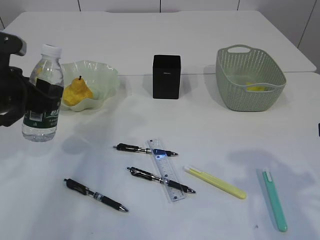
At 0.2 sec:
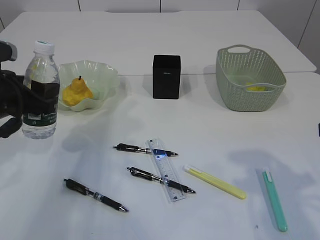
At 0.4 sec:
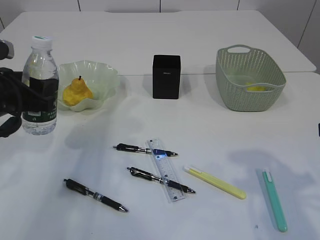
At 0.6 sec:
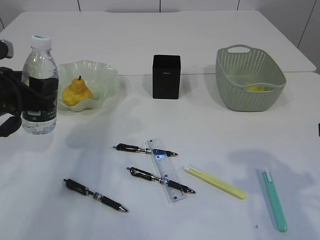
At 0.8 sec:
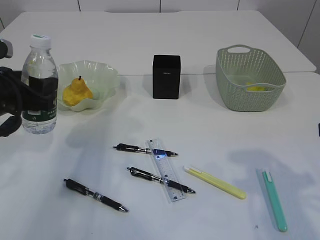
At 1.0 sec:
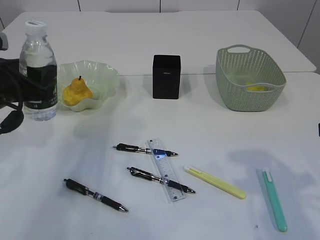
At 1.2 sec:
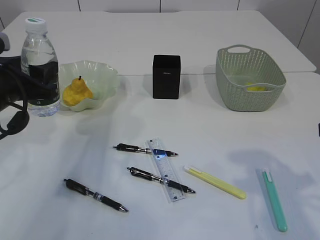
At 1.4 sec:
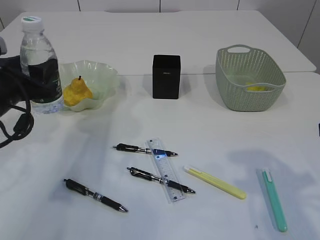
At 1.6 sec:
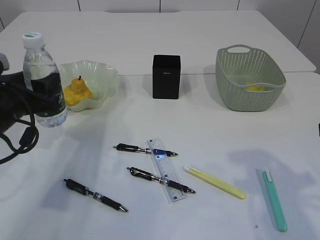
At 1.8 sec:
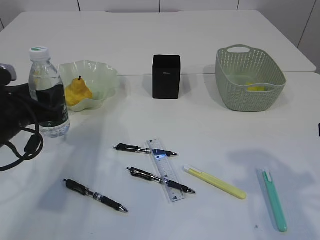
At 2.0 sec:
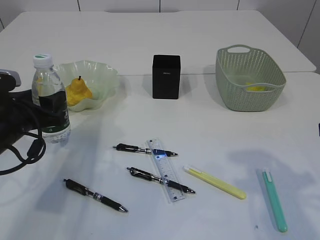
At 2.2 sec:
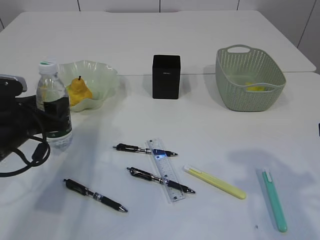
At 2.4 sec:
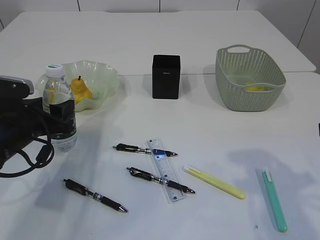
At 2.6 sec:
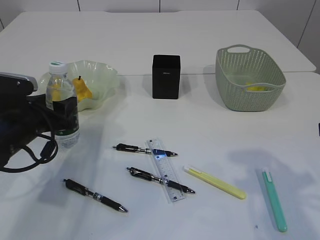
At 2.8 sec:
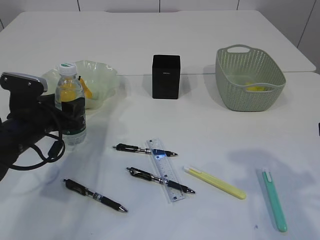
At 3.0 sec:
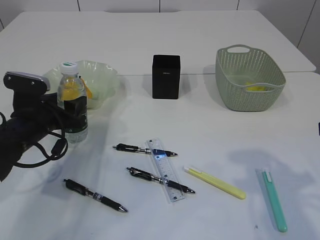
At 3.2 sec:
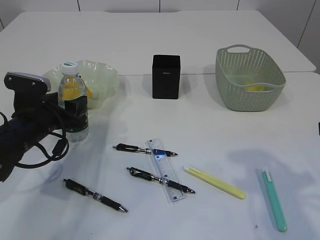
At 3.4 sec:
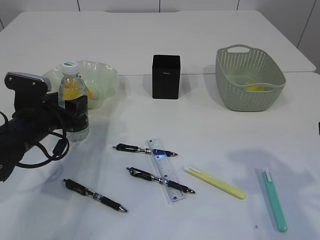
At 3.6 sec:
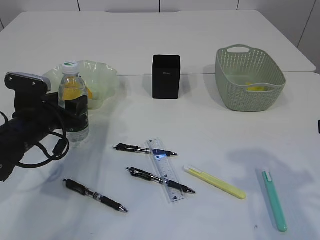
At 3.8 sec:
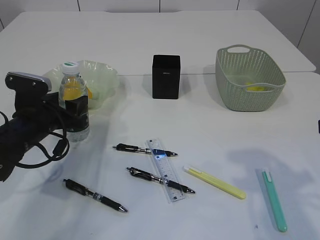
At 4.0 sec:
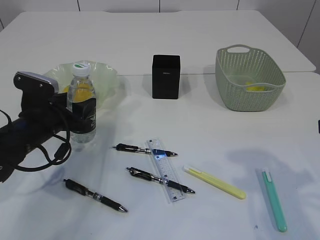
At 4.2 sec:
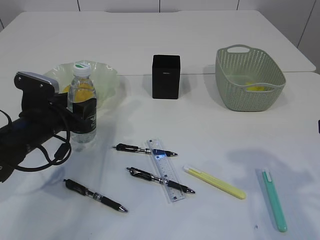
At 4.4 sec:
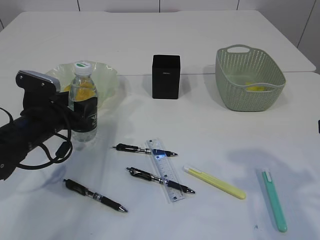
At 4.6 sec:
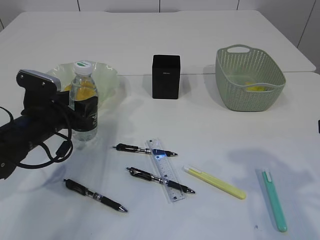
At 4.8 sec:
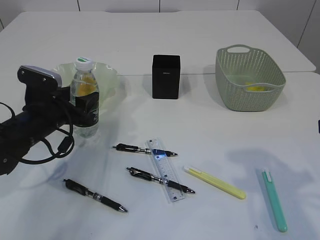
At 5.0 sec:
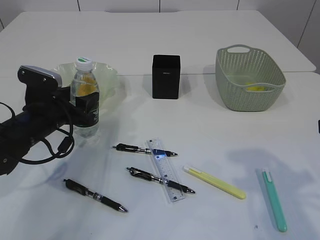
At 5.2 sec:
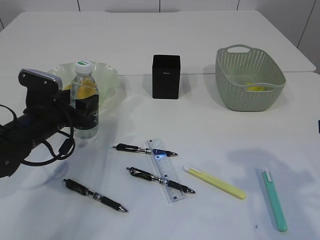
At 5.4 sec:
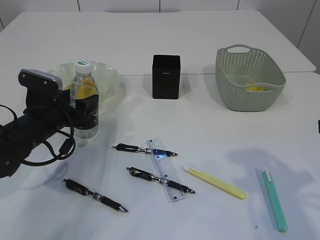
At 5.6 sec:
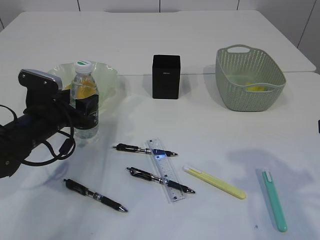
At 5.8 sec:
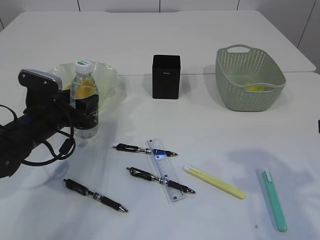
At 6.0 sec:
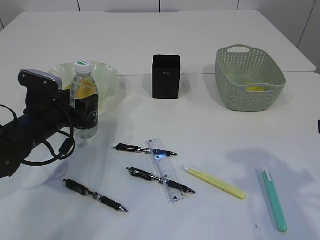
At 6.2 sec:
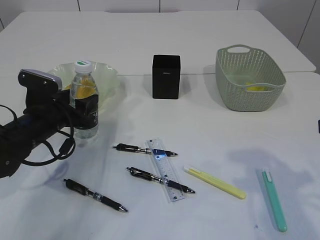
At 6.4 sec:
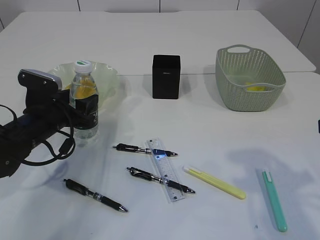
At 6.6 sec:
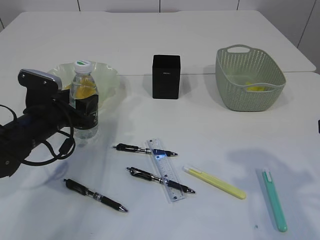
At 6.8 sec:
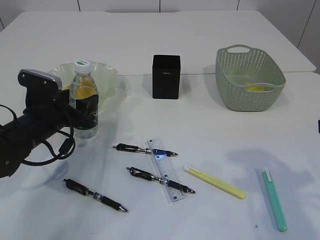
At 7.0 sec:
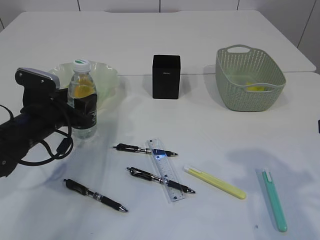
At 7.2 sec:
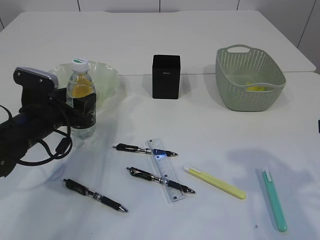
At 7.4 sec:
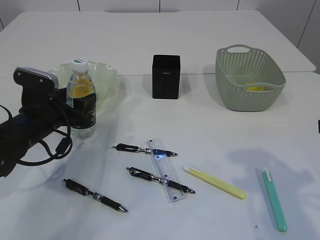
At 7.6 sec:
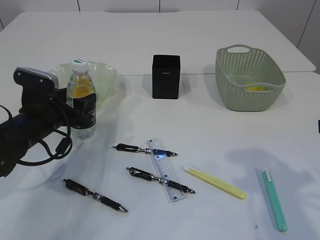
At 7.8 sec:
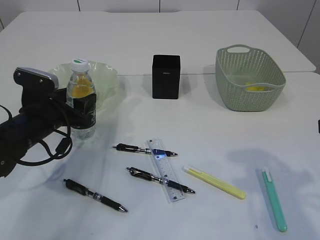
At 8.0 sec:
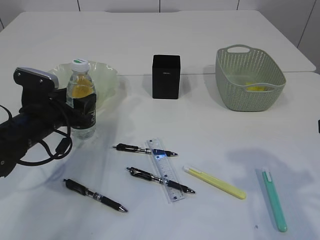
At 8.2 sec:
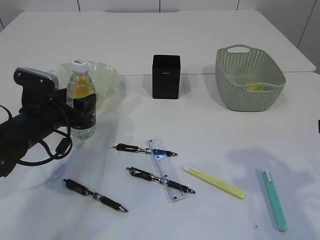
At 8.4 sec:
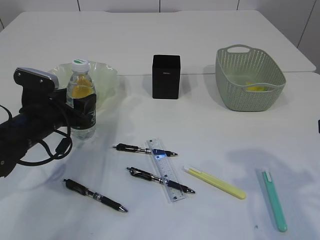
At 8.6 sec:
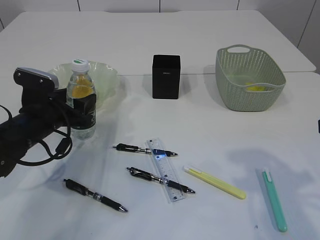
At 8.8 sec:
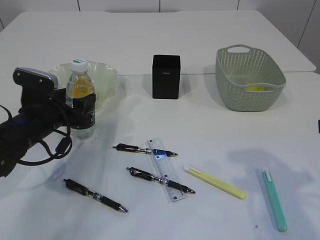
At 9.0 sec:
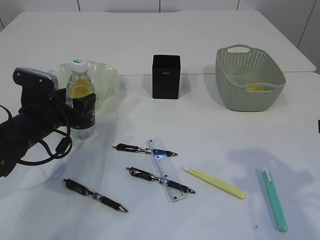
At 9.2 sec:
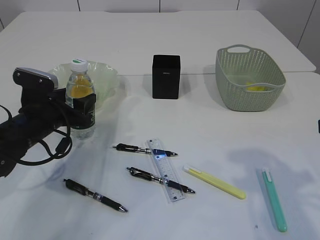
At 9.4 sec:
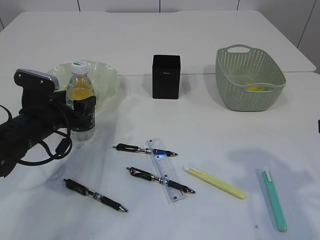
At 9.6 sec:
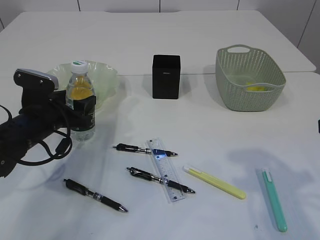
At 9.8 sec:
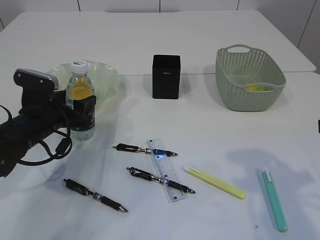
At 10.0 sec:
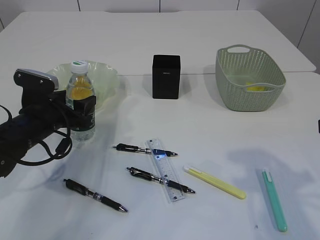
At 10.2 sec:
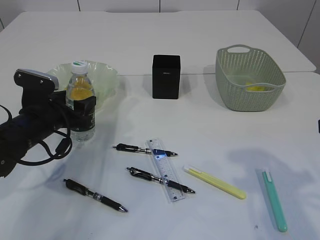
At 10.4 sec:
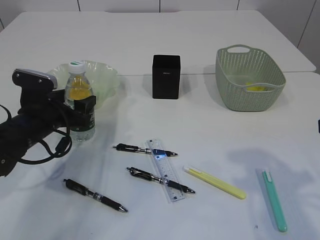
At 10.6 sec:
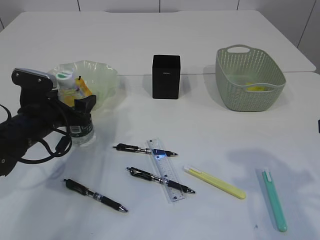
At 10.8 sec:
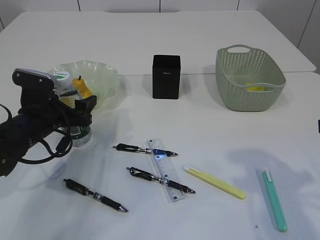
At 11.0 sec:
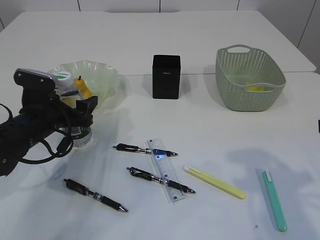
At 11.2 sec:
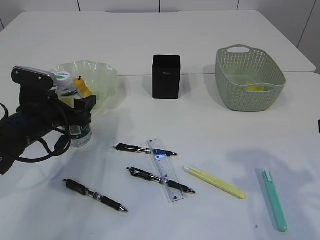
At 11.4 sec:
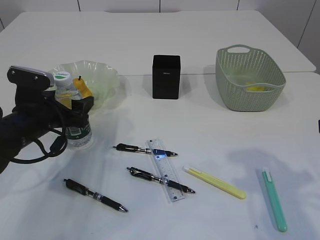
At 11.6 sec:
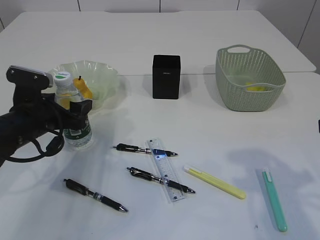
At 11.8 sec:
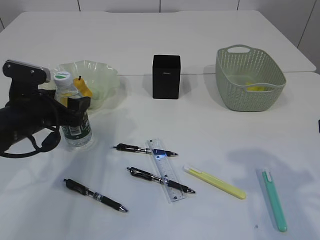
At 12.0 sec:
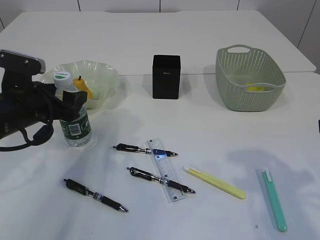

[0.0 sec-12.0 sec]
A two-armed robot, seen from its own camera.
1.6 sec to 3.0 sec: The left gripper moves downward, approximately 5 cm.
3.0 sec to 4.4 sec: The grippers move only a little.
4.4 sec to 10.4 sec: Neither gripper changes place.
10.4 sec to 12.0 sec: The left gripper shifts by roughly 5 cm.

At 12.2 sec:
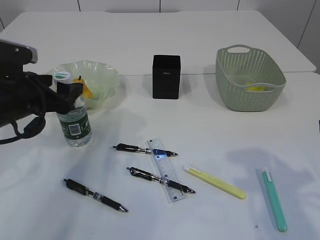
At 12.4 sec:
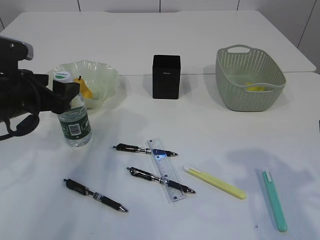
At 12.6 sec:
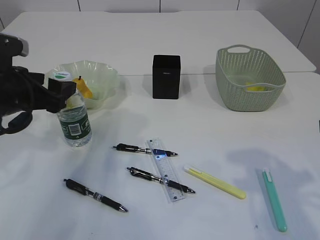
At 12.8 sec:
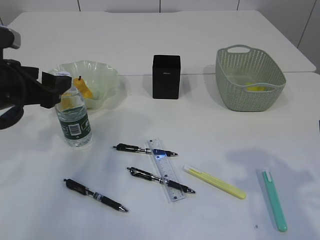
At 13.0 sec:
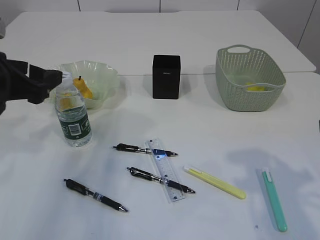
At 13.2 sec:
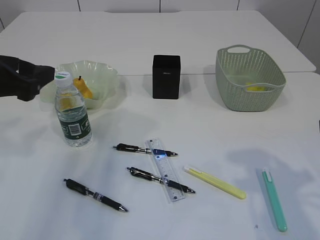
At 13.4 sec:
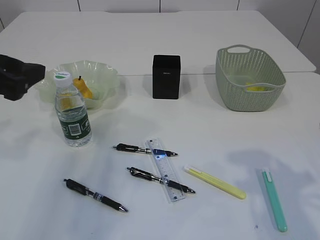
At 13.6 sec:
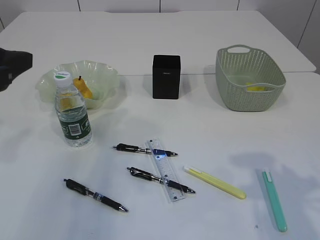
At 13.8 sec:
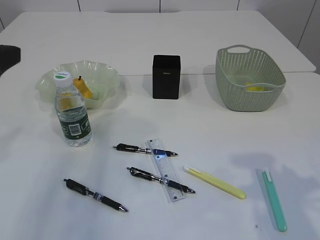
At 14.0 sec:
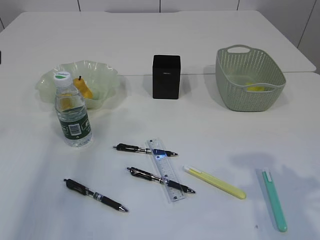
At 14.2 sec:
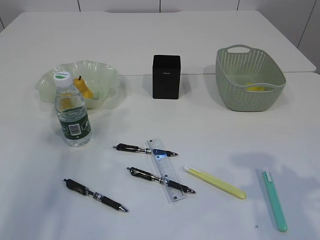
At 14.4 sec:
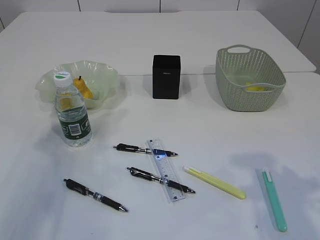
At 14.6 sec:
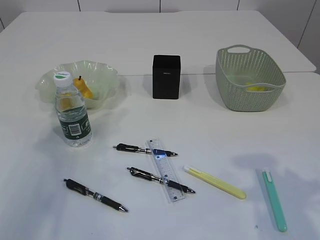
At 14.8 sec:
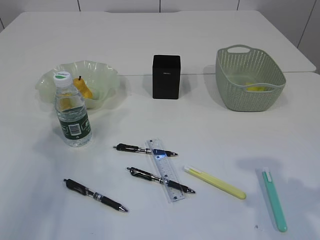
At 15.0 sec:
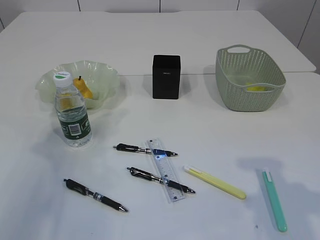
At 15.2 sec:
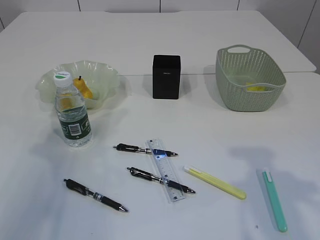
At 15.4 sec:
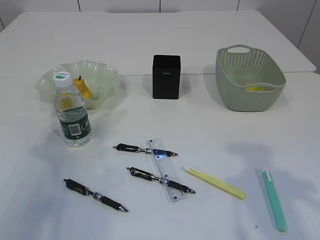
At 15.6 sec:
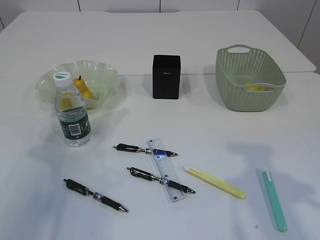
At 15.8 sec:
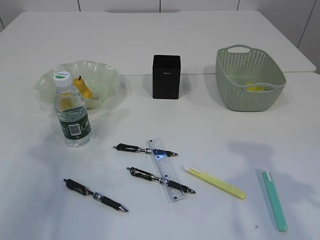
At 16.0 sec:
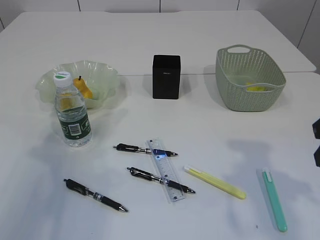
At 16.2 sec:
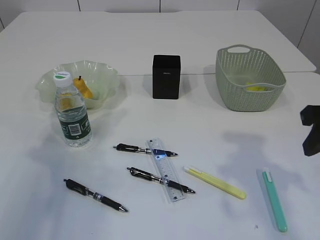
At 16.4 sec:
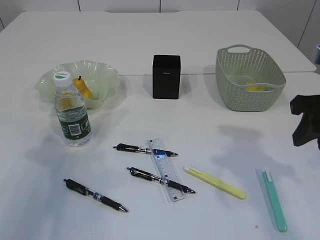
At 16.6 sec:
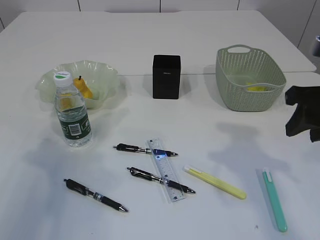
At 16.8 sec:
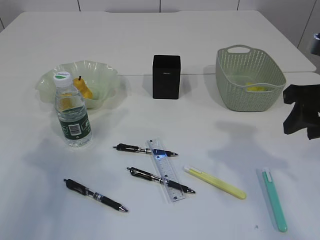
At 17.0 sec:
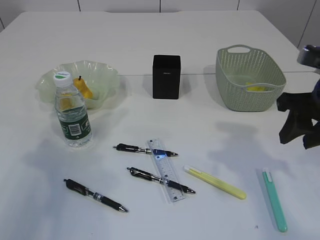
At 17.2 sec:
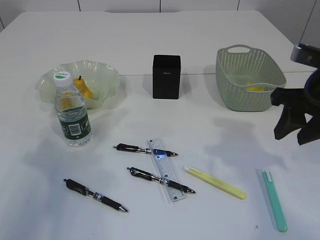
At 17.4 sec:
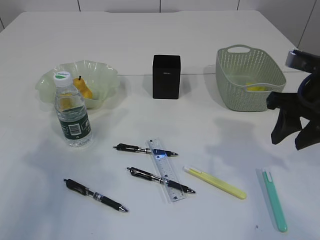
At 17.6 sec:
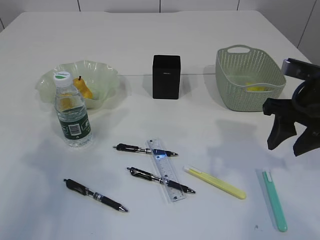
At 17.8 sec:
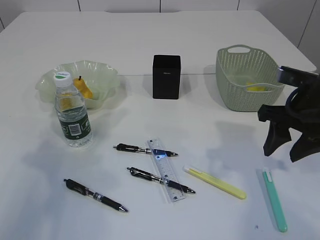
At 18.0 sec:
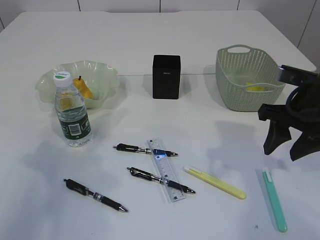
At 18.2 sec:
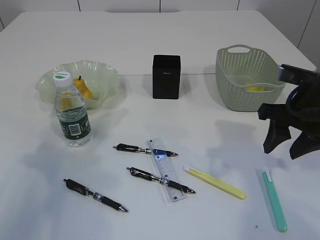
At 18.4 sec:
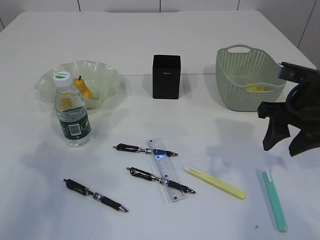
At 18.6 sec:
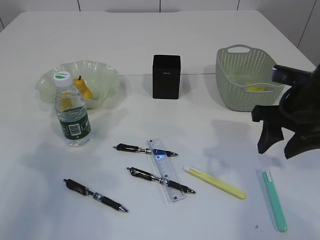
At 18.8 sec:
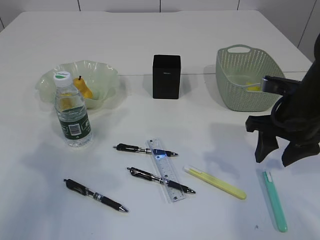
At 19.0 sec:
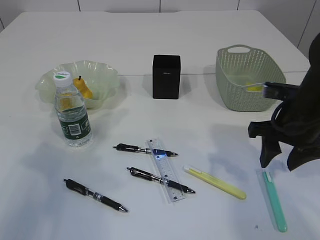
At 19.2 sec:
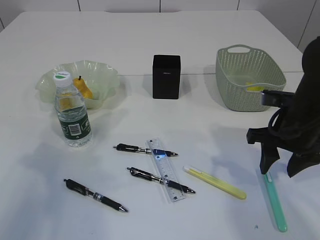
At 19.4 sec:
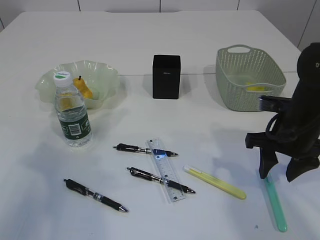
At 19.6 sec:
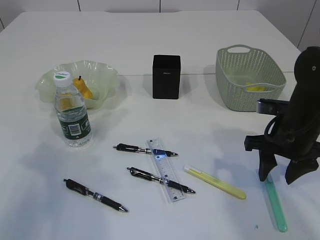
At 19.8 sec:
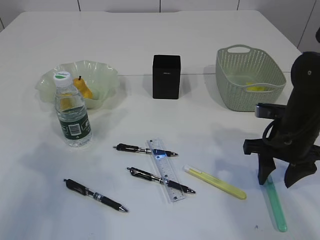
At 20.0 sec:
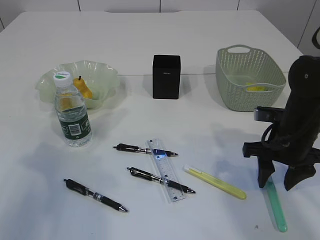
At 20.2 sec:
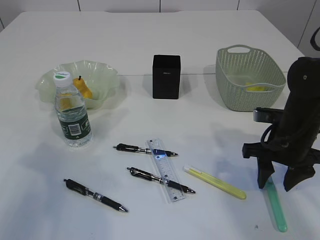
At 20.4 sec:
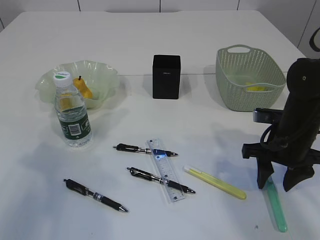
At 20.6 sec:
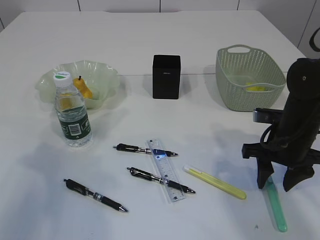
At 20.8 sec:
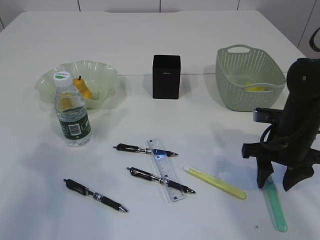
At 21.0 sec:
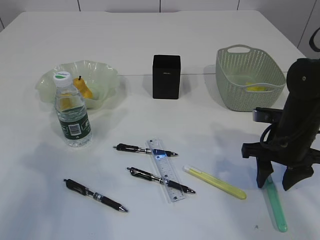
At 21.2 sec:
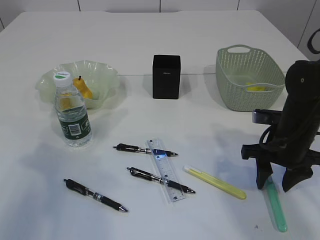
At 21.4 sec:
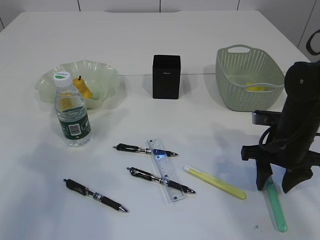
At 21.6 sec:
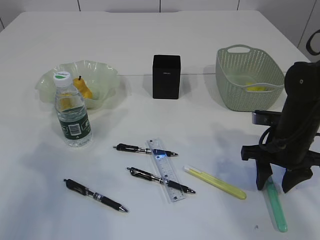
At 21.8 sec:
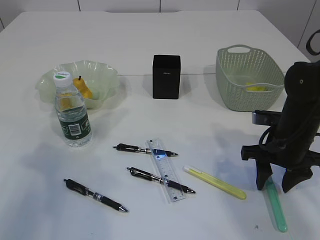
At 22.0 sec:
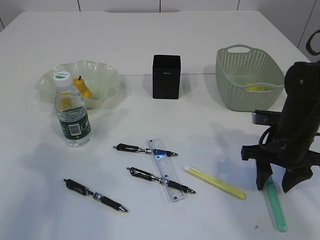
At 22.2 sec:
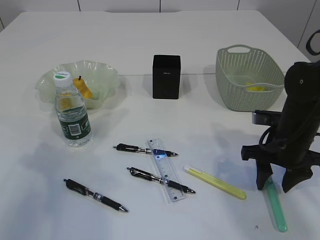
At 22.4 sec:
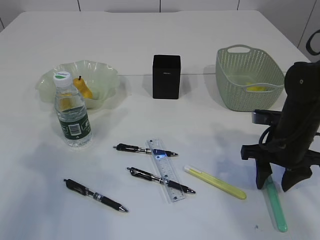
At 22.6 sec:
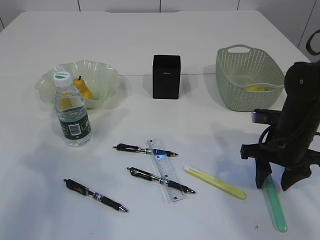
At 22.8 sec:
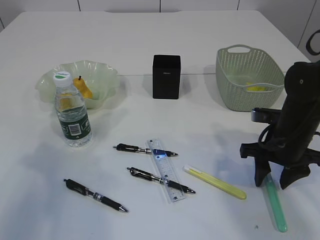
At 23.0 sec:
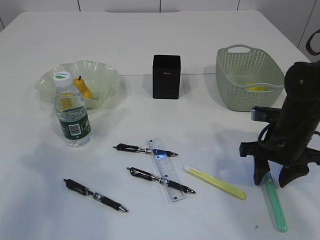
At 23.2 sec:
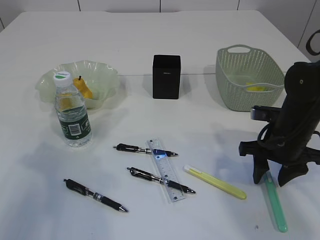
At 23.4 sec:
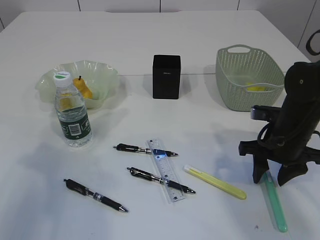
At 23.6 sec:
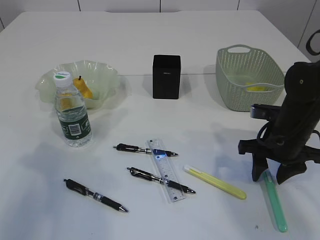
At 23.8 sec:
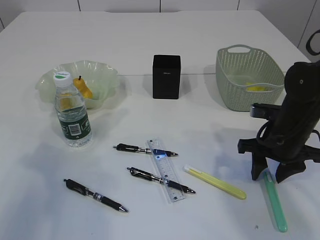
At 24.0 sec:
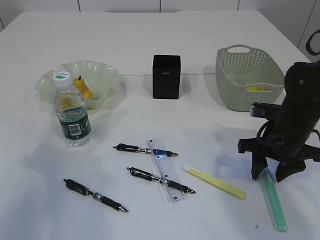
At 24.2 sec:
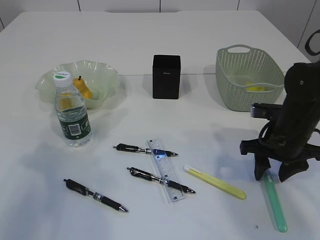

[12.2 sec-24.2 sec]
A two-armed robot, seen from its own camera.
12.2 sec to 13.8 sec: The left gripper is displaced upward and backward by about 15 cm.
13.8 sec to 15.2 sec: The left gripper goes some 5 cm to the left.
15.2 sec to 16.6 sec: The right gripper moves forward, some 10 cm.
16.6 sec to 18.2 sec: The right gripper moves approximately 5 cm.
18.2 sec to 19.8 sec: The right gripper travels downward by about 5 cm.
19.8 sec to 21.2 sec: There are only small adjustments of the grippers.
21.2 sec to 22.6 sec: Both grippers stay about where they are.
22.6 sec to 24.2 sec: There are only small adjustments of the grippers.
